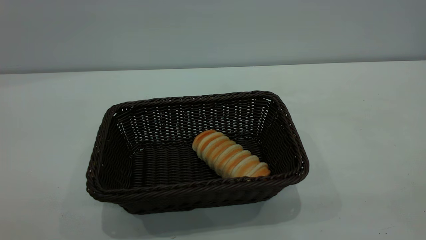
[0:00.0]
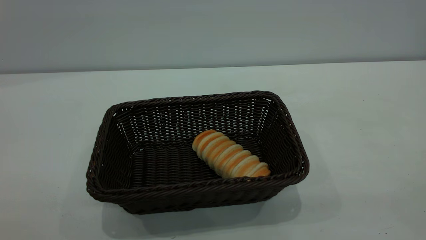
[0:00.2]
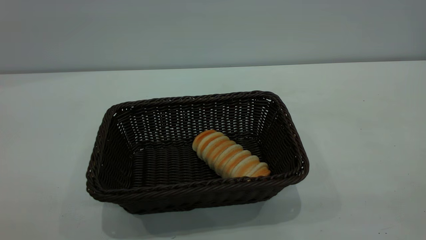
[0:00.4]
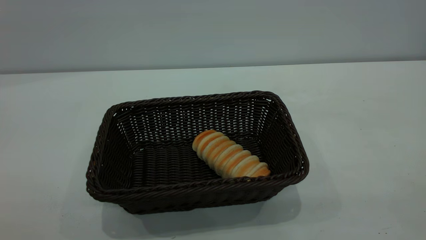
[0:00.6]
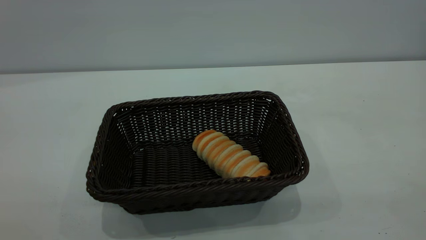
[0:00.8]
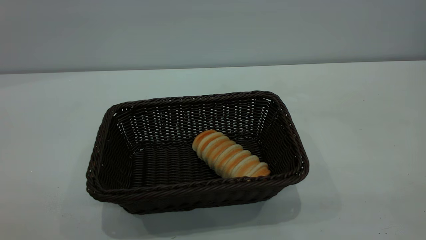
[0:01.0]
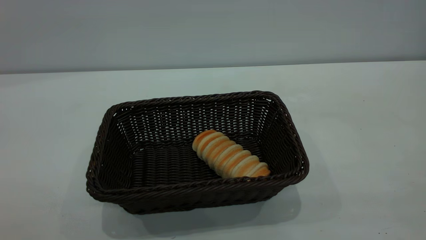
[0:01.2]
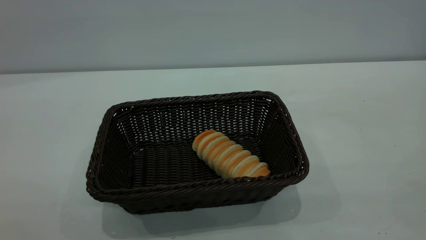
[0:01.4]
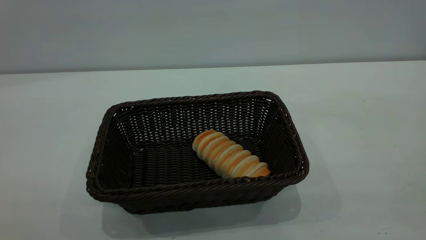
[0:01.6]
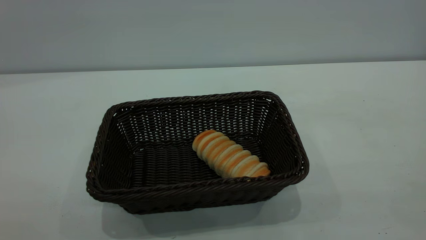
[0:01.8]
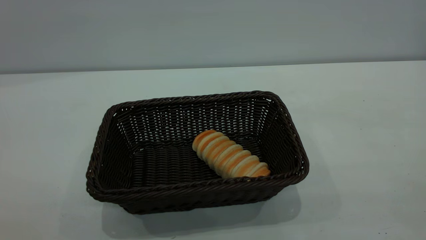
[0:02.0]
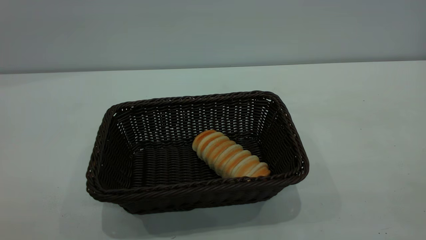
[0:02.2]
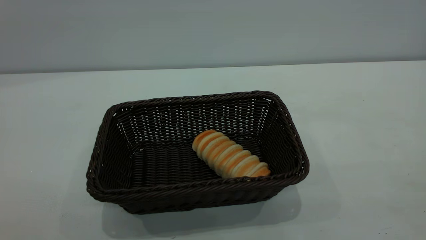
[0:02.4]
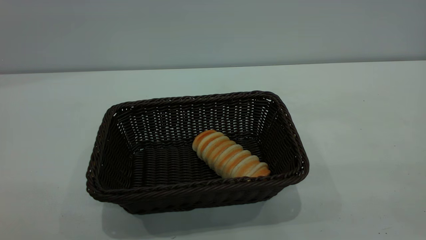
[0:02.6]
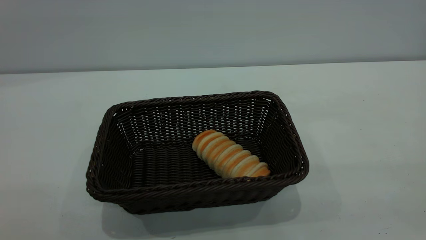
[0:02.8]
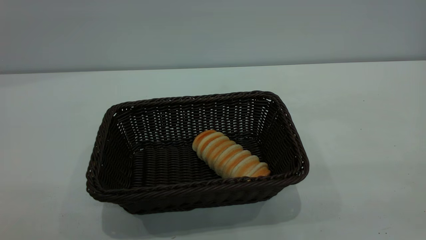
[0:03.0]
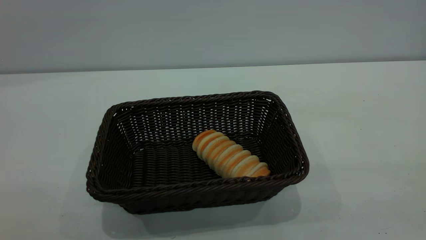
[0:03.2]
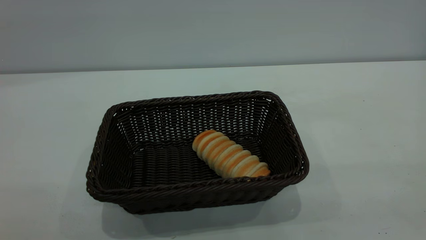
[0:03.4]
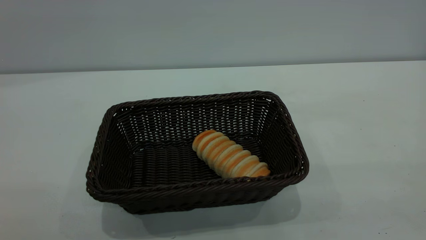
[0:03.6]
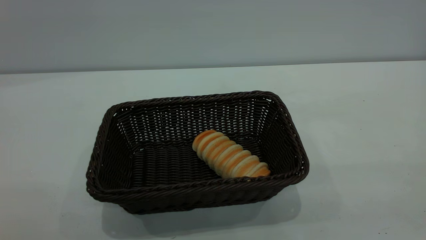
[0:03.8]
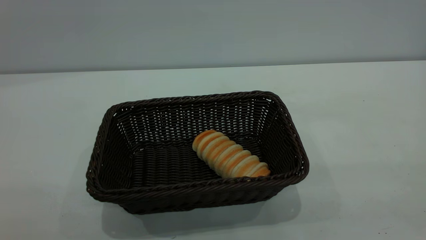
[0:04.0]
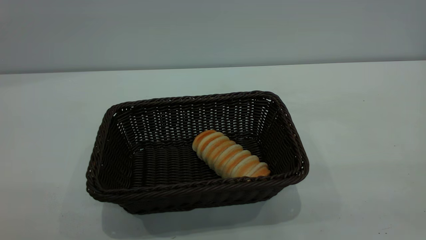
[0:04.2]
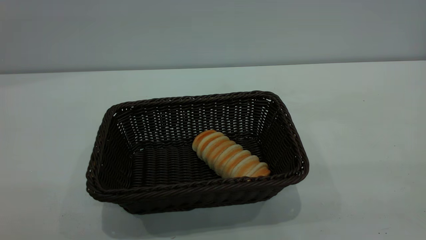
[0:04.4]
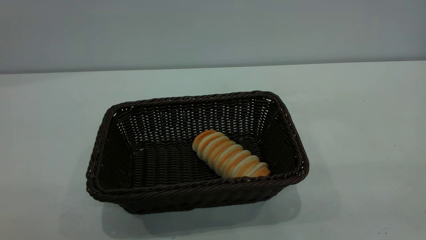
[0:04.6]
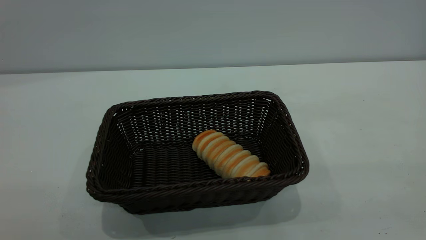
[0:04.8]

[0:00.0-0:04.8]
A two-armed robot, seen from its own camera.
Task of the whole recording: One hand grasps the black basket and places it in the middle of the table, while the other hand picks up the long bread and puts it into the black basket.
0:03.2 to 0:04.8: Both grippers stay about where they are.
